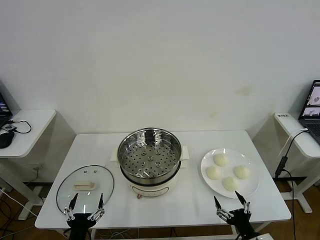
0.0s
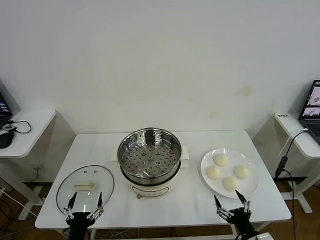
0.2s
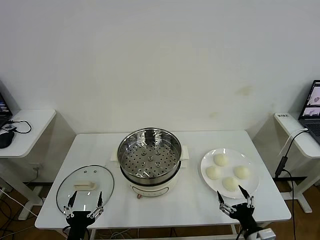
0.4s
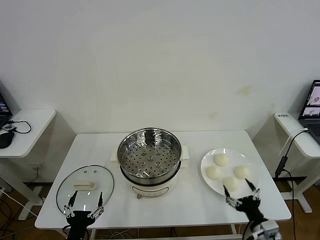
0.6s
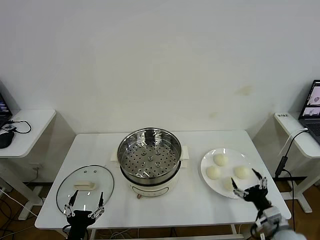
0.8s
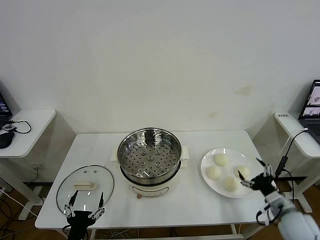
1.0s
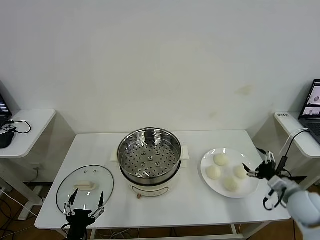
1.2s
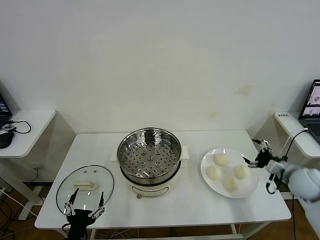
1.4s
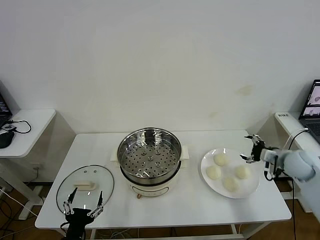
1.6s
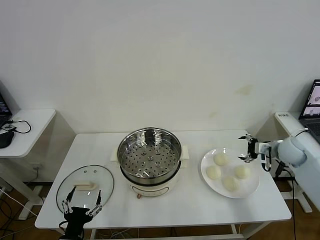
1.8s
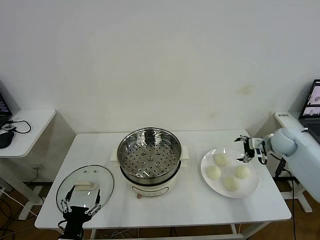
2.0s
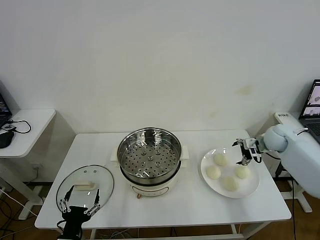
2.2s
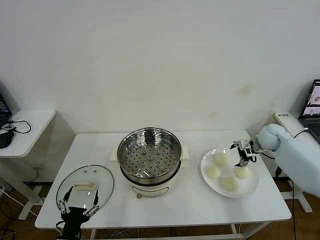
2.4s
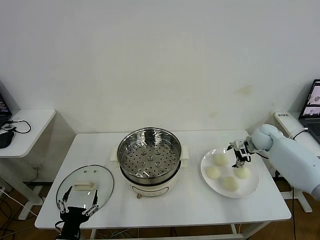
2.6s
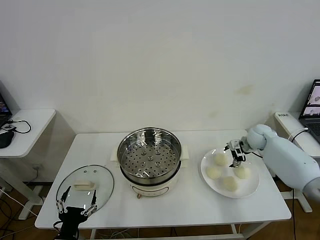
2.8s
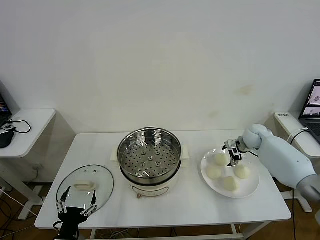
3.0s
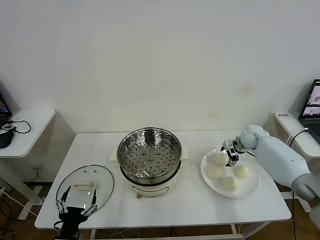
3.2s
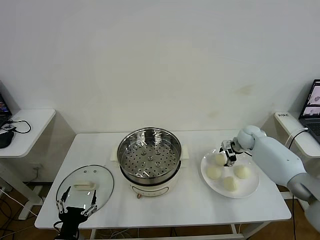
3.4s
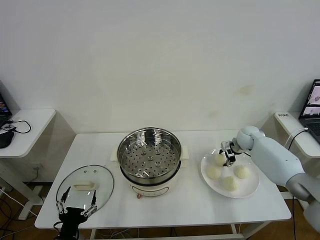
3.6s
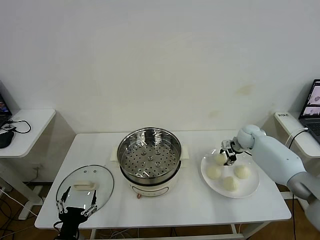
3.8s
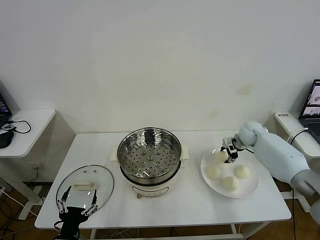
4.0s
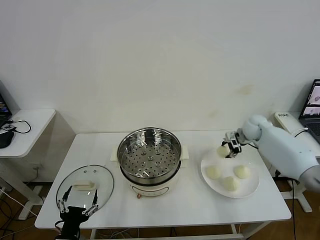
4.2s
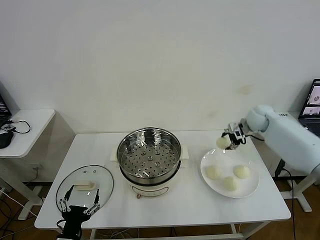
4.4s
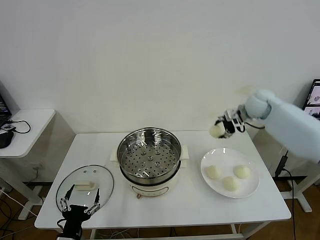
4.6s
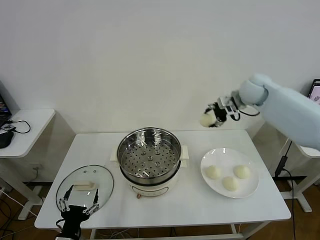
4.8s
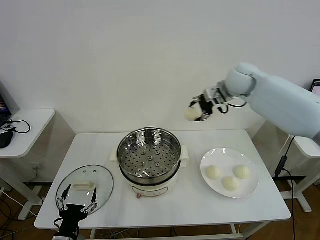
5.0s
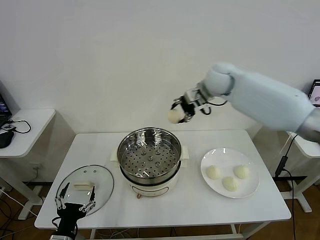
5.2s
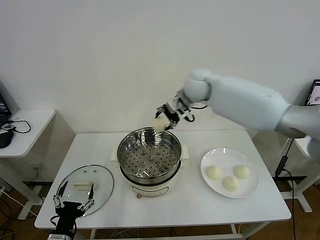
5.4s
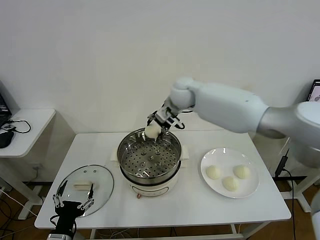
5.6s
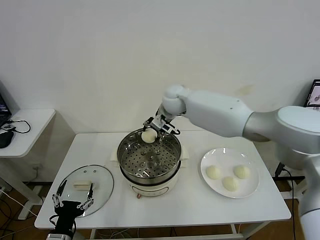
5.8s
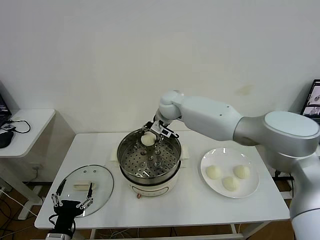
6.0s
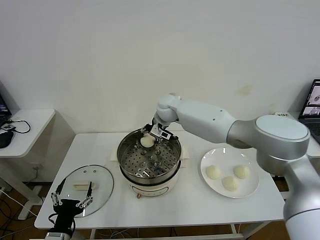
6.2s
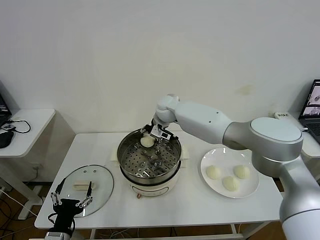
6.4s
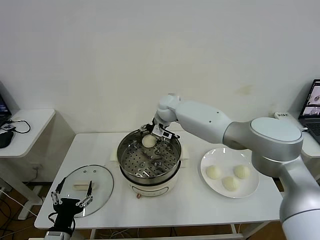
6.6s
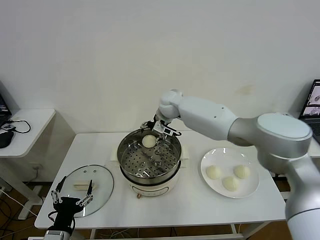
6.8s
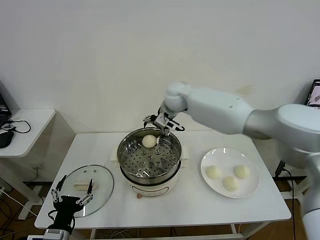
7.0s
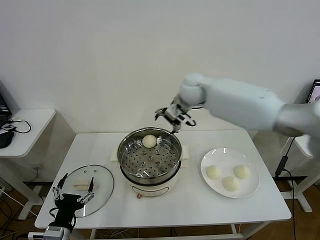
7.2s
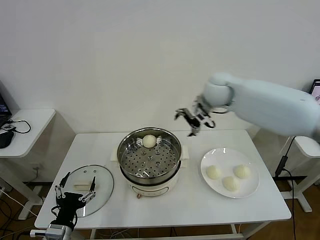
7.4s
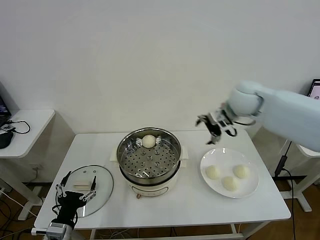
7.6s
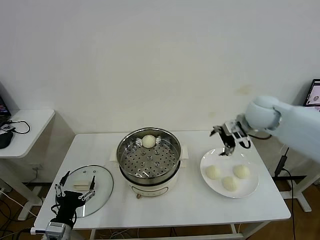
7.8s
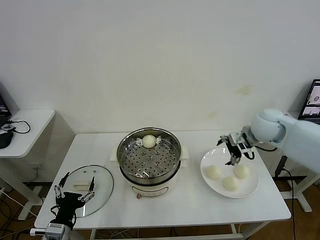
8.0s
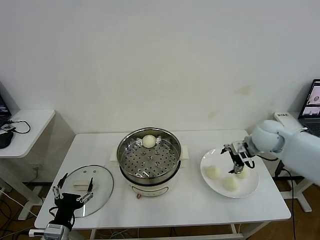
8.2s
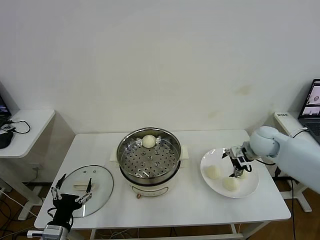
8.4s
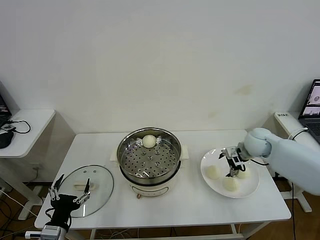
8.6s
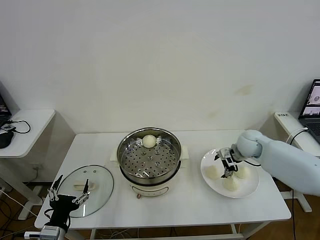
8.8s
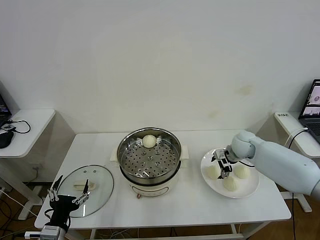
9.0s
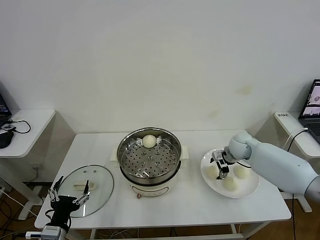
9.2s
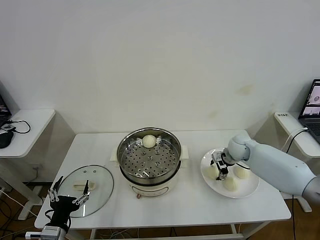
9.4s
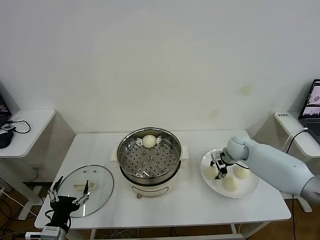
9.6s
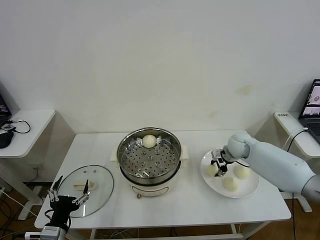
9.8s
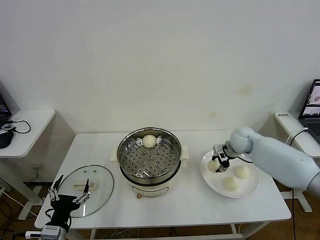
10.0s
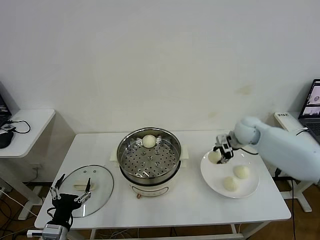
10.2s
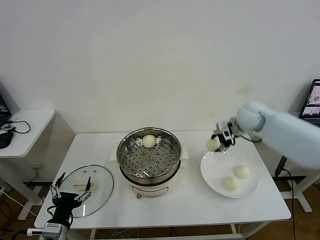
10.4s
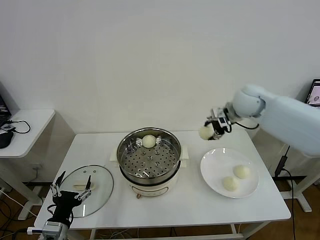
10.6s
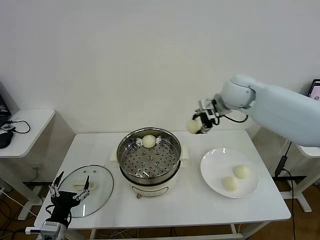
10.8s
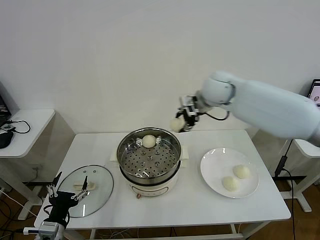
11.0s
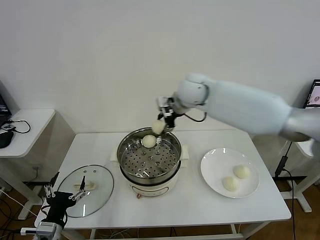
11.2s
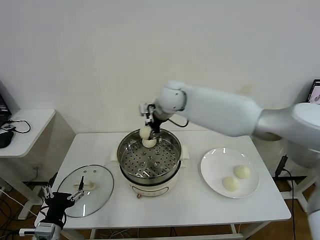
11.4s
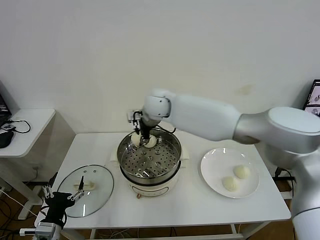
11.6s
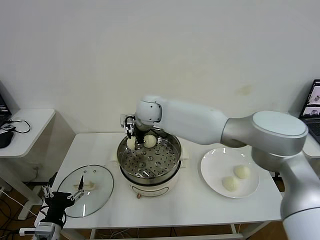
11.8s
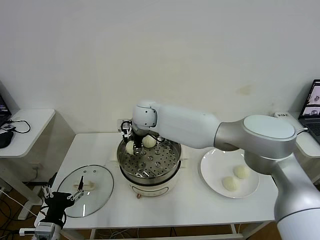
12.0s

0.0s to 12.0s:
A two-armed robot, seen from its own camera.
Task of the whole recording: take steamed baozi put them in steamer then cover it.
Step, 0.0s to 3.8s: Grasp the baozi in the plate with right gripper.
Step, 4.0s to 6.6s: Place the baozi on the steamer with right gripper.
Step, 7.0s to 9.6s: Grasp the baozi in the plate with right gripper.
1.6s to 3.0s: The right gripper goes about 15 cm forward and to the left.
3.0s to 4.4s: The right gripper shifts about 10 cm upward, and closes up.
4.4s to 6.0s: The right gripper shifts approximately 35 cm to the left.
6.0s to 7.6s: The right gripper moves to the right, roughly 20 cm, and opens up.
7.6s to 9.0s: The right gripper travels downward by some 20 cm.
9.0s to 10.4s: The right gripper moves upward, about 15 cm, and closes.
10.4s to 12.0s: The right gripper moves to the left, roughly 35 cm.

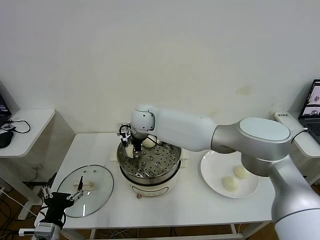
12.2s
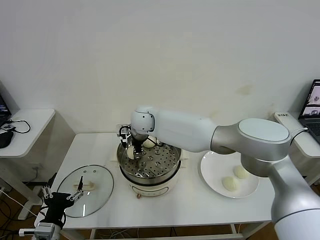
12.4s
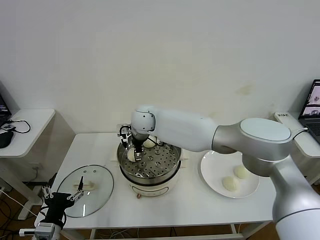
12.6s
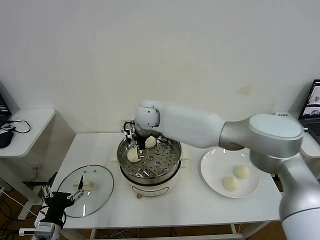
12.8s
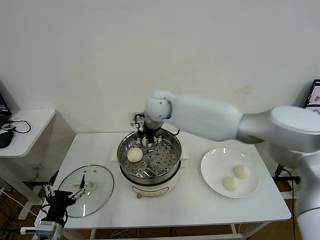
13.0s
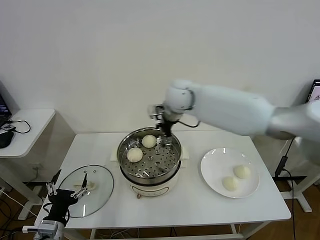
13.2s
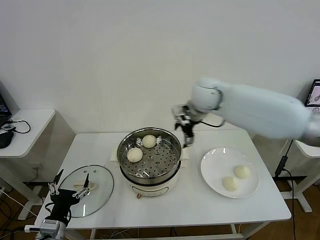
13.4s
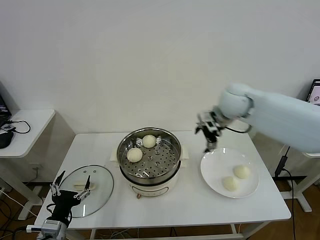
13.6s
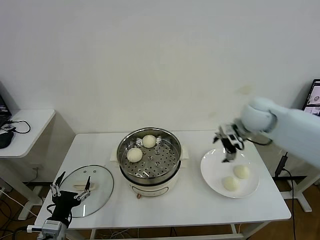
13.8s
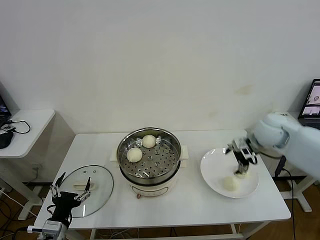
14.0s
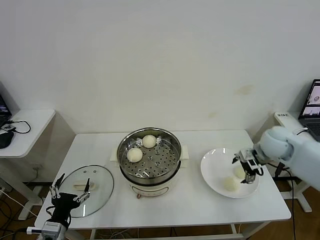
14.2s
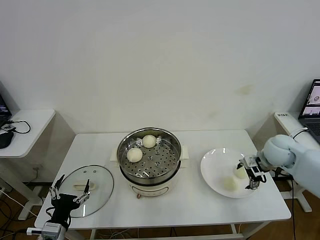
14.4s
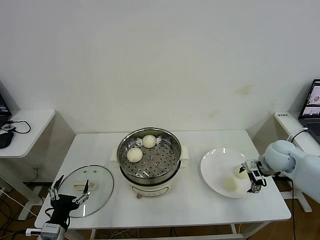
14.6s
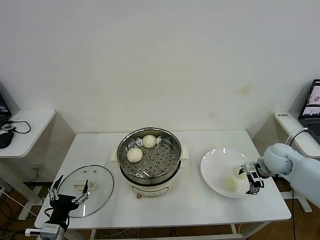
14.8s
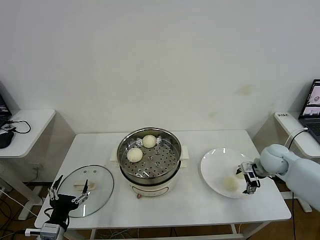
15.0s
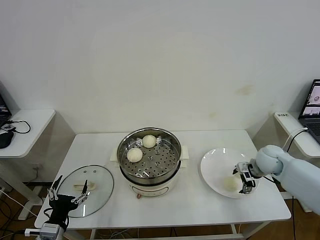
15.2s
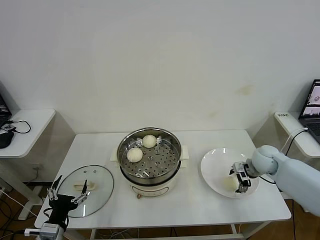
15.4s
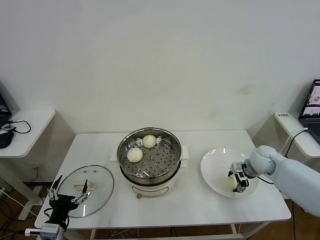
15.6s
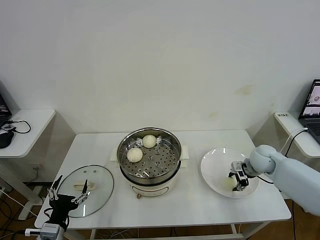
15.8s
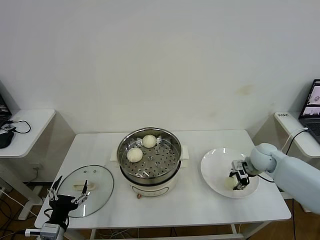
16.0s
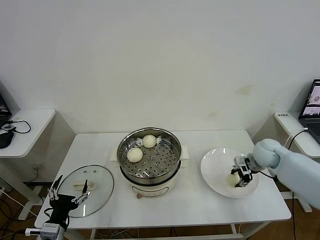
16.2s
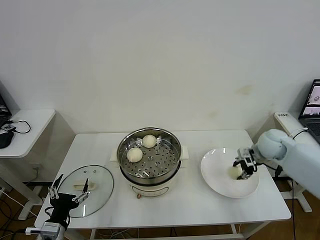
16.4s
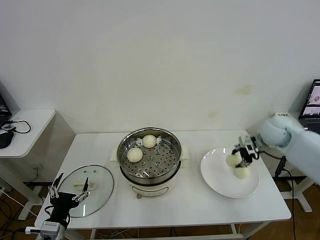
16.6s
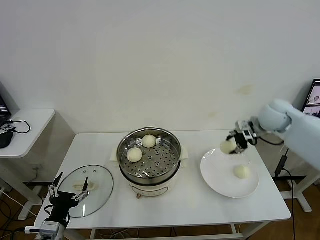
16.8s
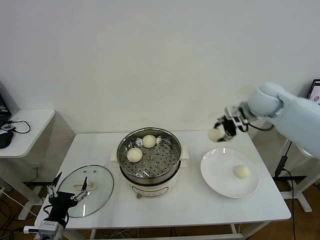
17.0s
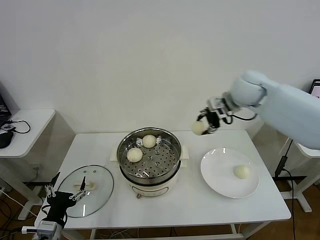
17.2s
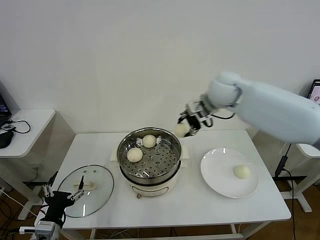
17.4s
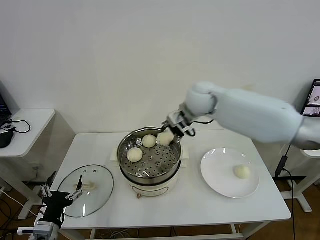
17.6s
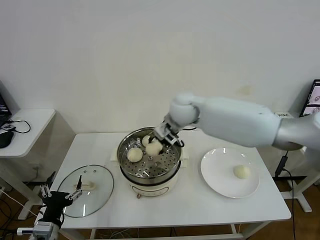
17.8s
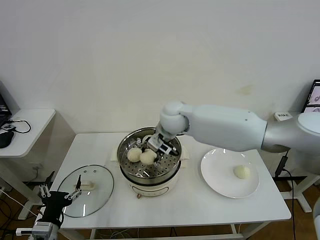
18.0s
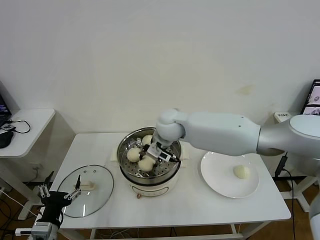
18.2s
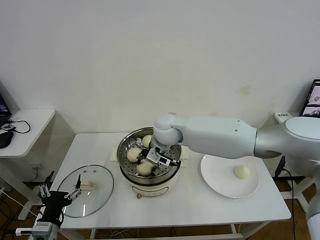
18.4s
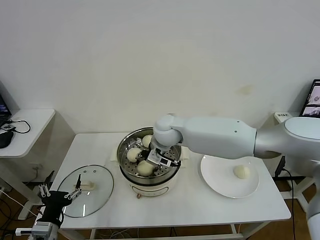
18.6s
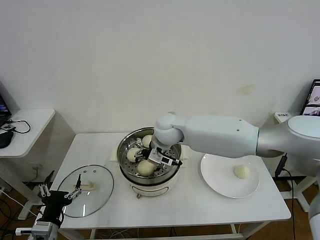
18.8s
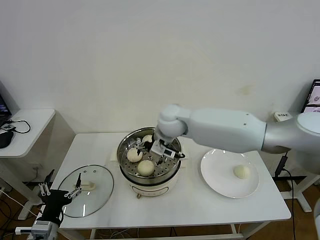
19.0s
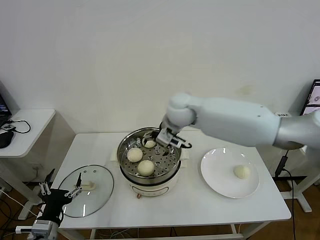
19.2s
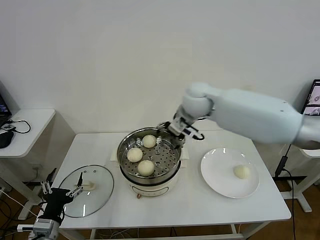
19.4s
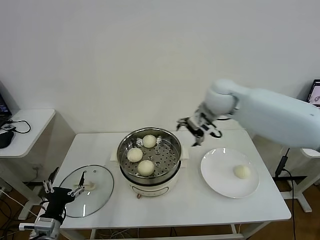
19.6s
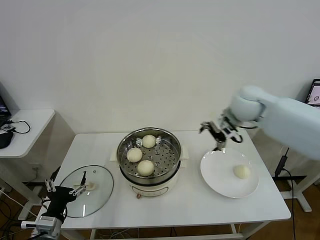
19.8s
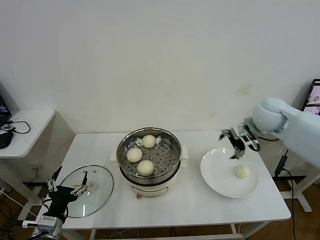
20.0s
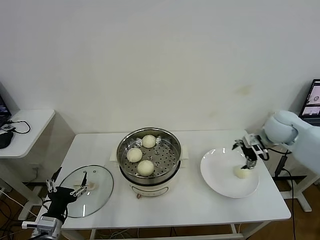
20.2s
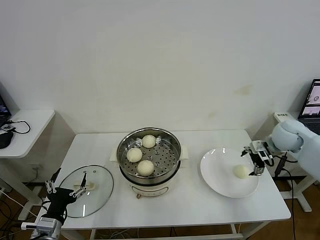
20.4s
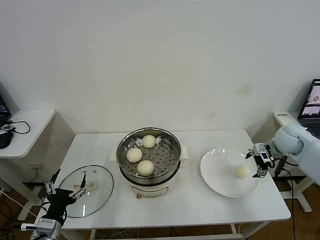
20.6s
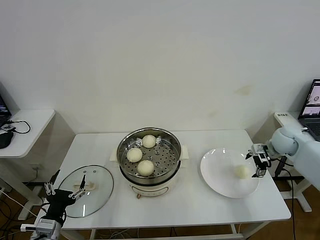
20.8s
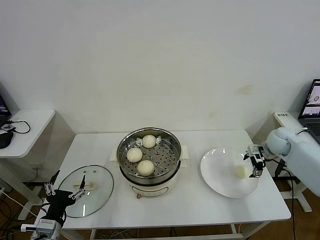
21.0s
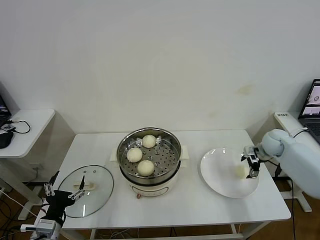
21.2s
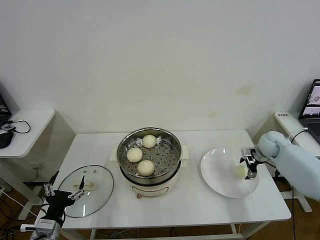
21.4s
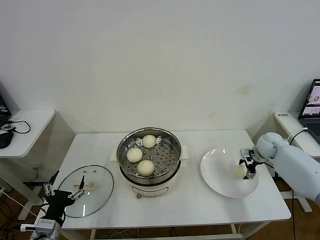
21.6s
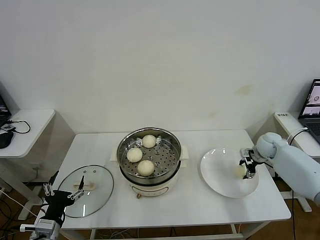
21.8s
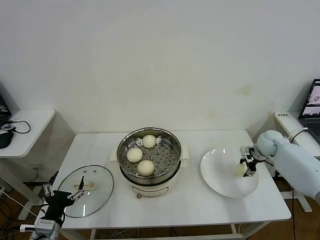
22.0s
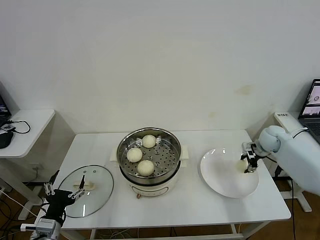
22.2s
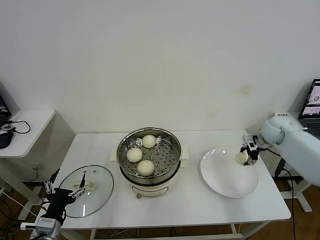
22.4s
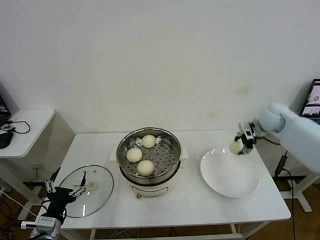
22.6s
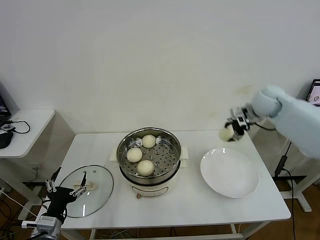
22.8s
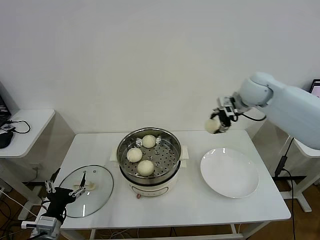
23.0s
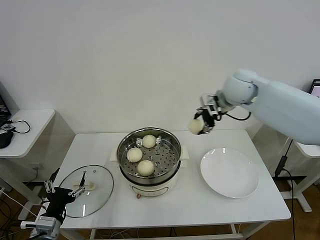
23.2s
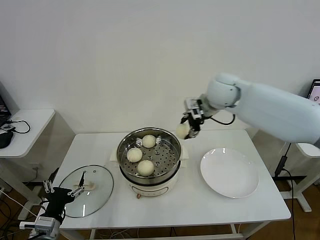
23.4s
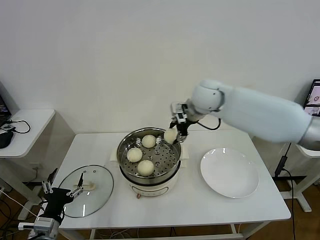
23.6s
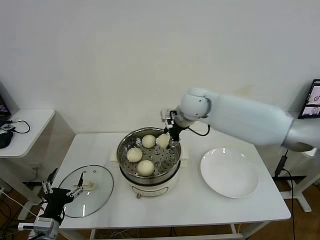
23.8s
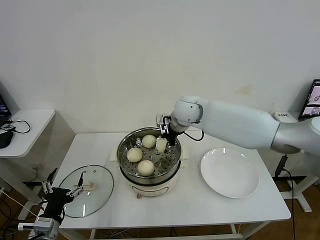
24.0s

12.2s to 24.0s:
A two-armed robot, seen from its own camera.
Task of the whole recording: take steamed baozi put them in steamer then cover it.
Step, 12.8s to 16.0s: Grasp the baozi in the plate with right gripper.
Step, 16.2s to 18.8s: Place the baozi on the steamer with right gripper.
Step, 19.0s to 22.0s: Grasp the baozi in the plate with right gripper.
12.2s to 13.6s: The right gripper heads to the right, covering some 30 cm, and opens.
13.6s to 15.2s: The right gripper travels downward and to the right by roughly 25 cm.
15.2s to 16.6s: The right gripper shifts some 10 cm upward, and closes.
16.6s to 18.2s: The right gripper moves to the left, some 35 cm.
18.2s to 19.6s: The right gripper travels to the right and upward by about 15 cm, and opens its fingers.
19.6s to 21.0s: The right gripper heads to the right and downward, covering approximately 30 cm.
21.0s to 22.6s: The right gripper heads upward, covering about 5 cm, and closes.
22.6s to 24.0s: The right gripper is displaced to the left by roughly 30 cm.
